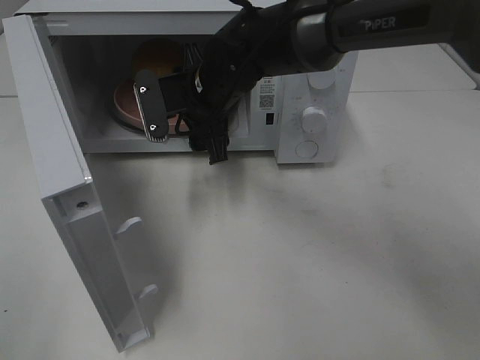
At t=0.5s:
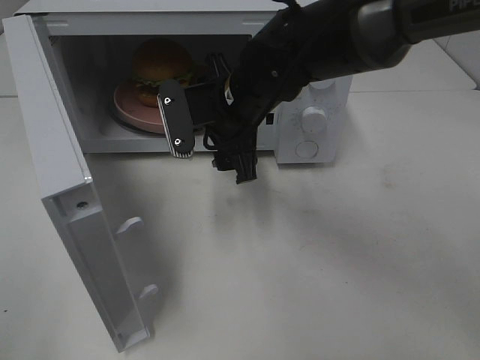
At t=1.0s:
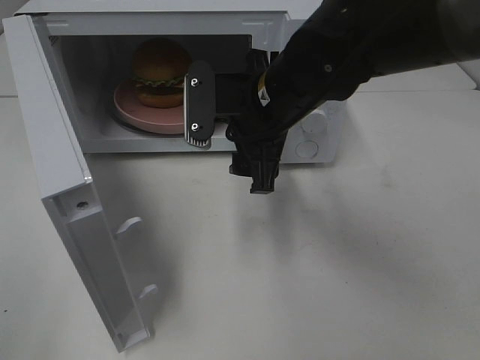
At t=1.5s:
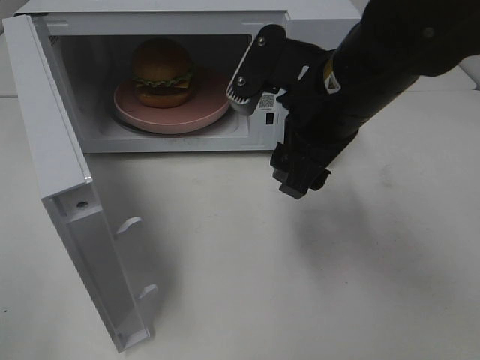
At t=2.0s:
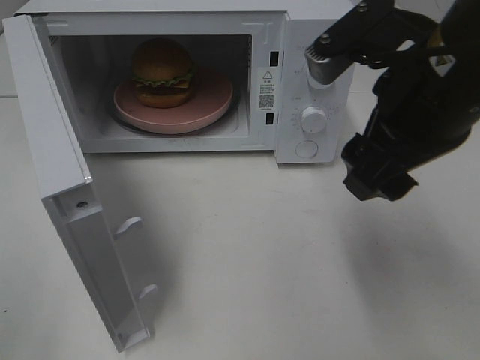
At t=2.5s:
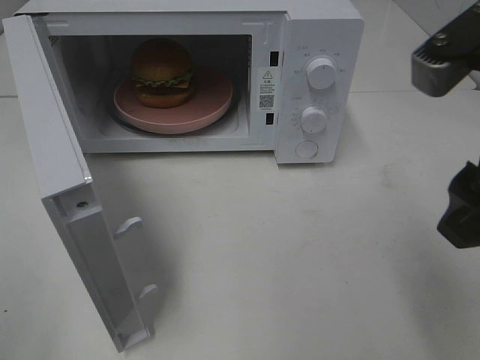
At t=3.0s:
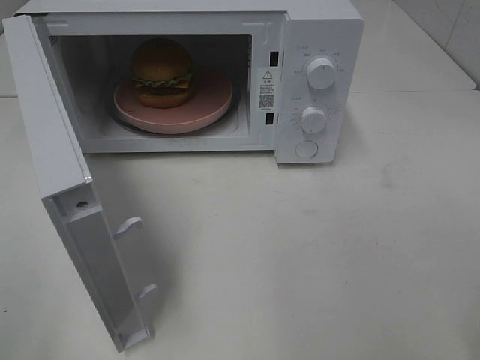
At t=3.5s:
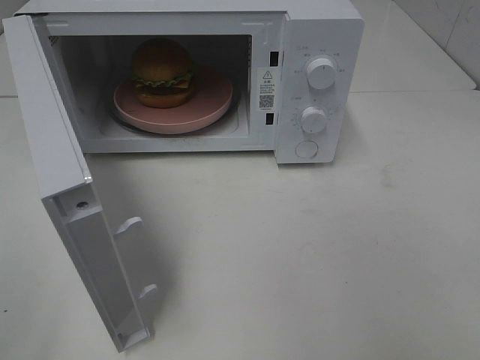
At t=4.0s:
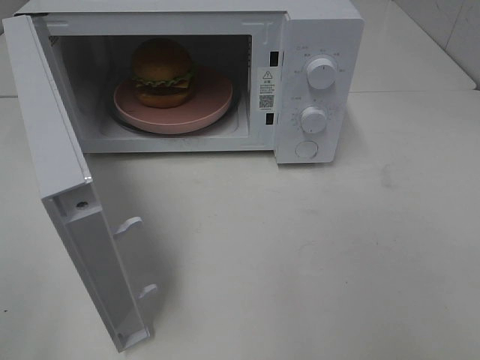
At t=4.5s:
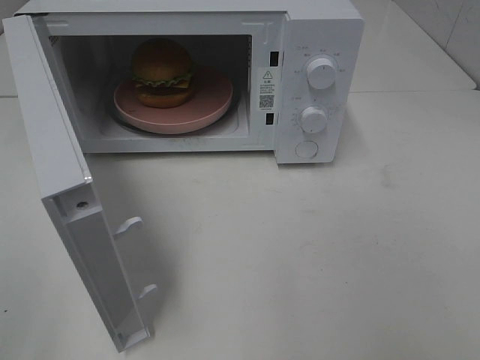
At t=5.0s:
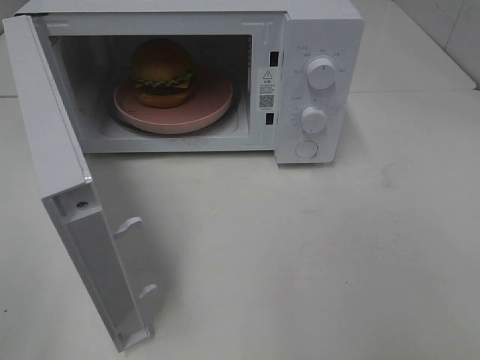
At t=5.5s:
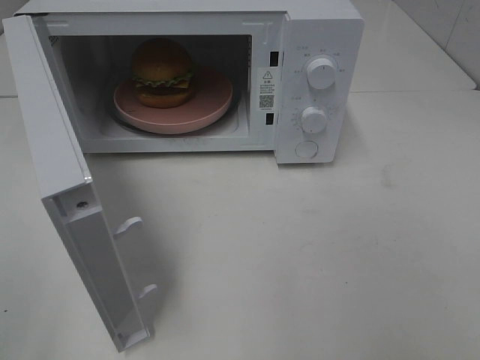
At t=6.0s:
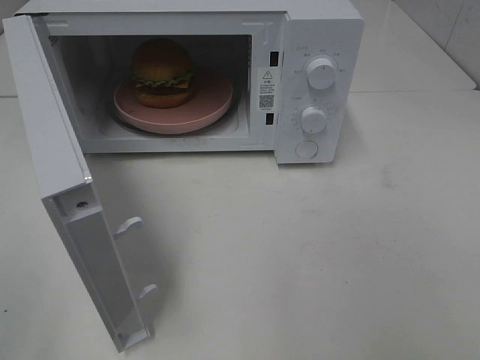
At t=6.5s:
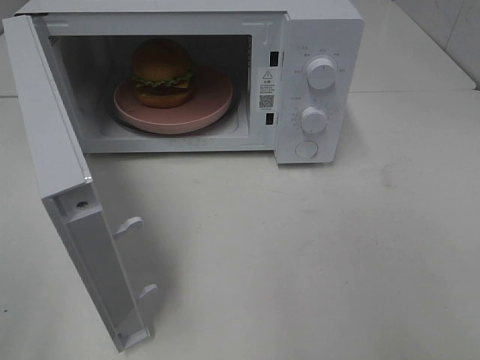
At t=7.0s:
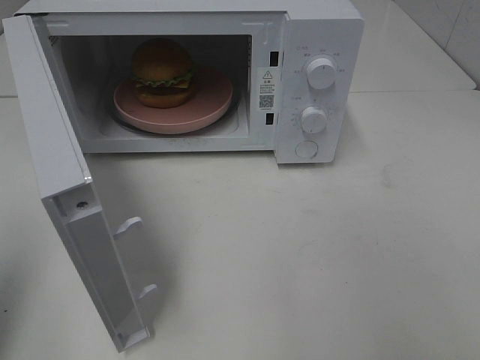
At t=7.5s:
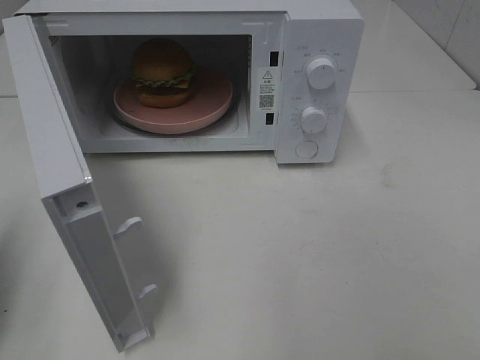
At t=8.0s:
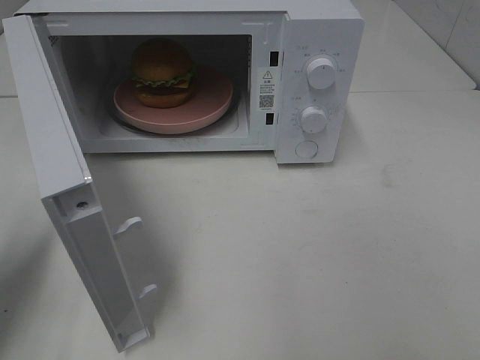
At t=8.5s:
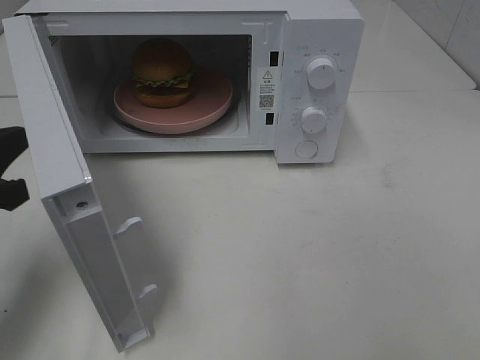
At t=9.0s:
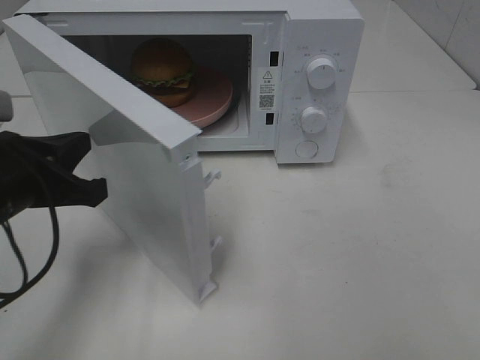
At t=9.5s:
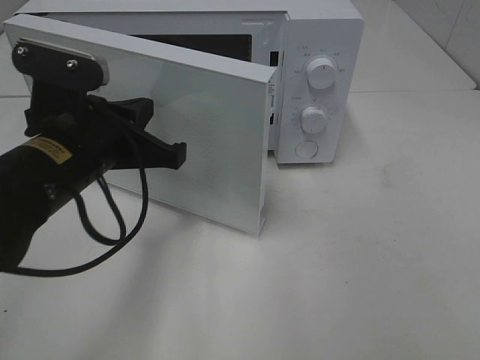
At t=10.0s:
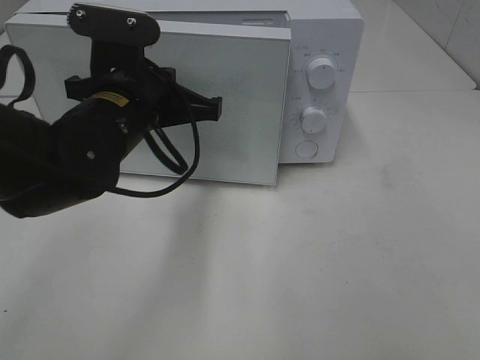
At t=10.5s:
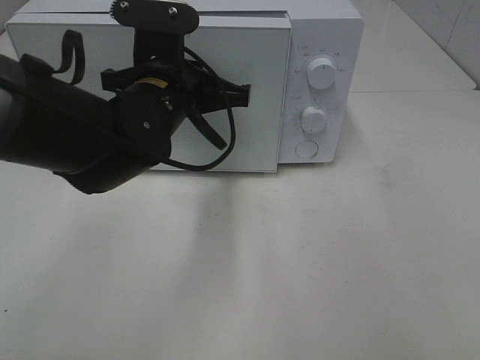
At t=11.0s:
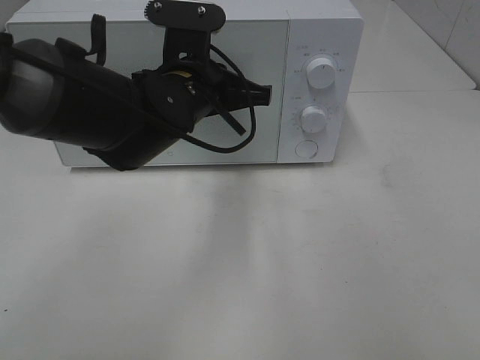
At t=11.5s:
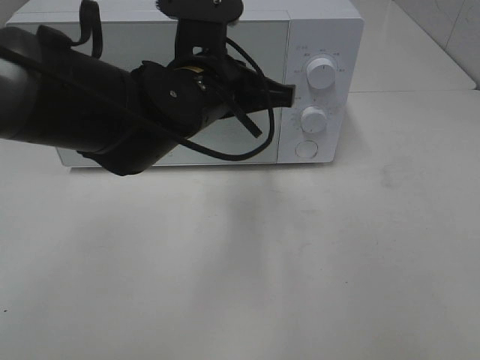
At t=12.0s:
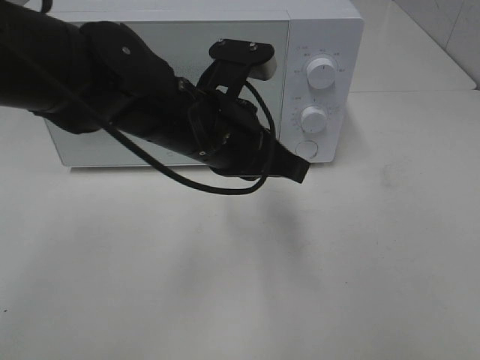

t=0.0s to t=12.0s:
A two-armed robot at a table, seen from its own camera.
Task of the whole recording: Heat the burger.
Step, t=0.0s to t=11.5s: Left hand: close the microwave door.
t=0.0s to t=2.0s: The right gripper heads backward, to the right and upward, covering roughly 25 cm.
t=2.0s to t=4.0s: The right gripper is displaced backward and to the right by about 25 cm.
t=6.0s to t=8.0s: The left gripper shifts some 20 cm forward and downward, and closes its fingers.
t=8.0s to t=10.0s: The left gripper is displaced to the right and forward by about 25 cm.
t=10.0s to t=12.0s: The left gripper travels to the right by some 5 cm.

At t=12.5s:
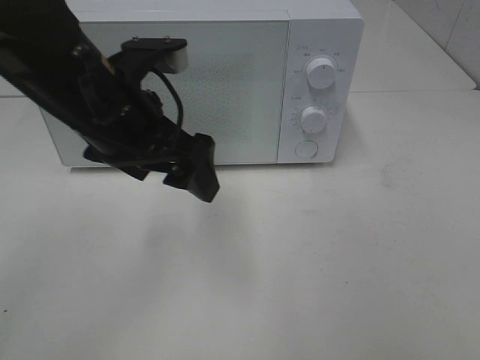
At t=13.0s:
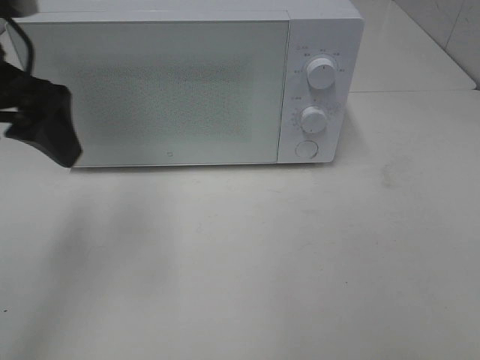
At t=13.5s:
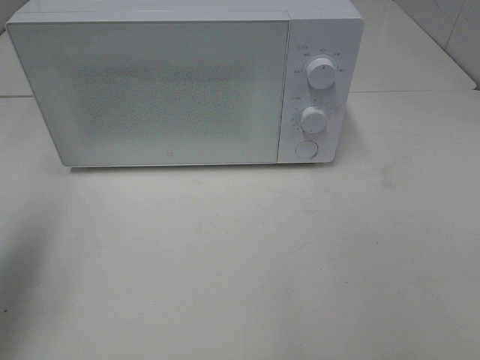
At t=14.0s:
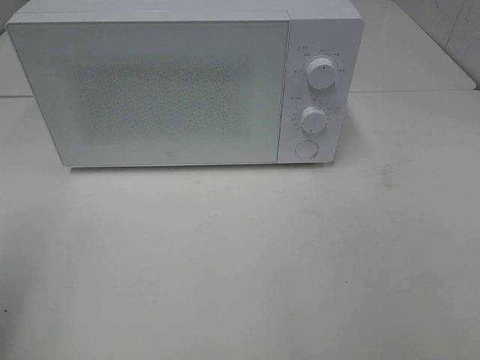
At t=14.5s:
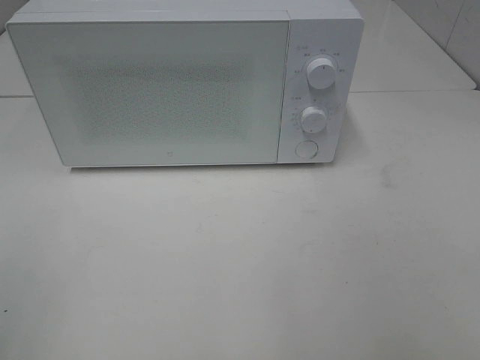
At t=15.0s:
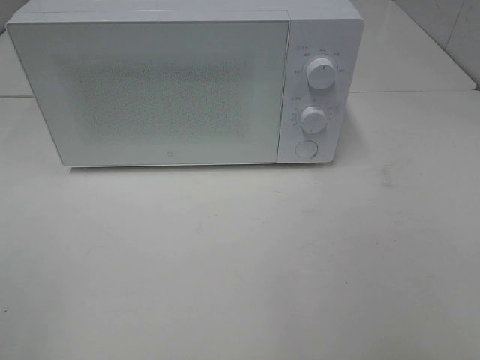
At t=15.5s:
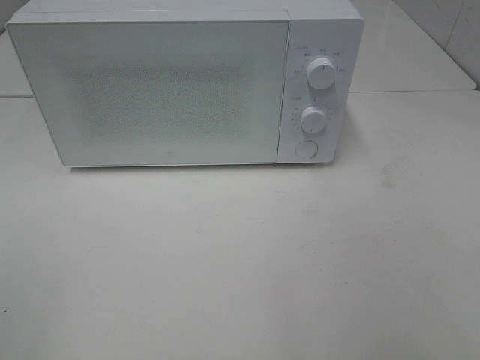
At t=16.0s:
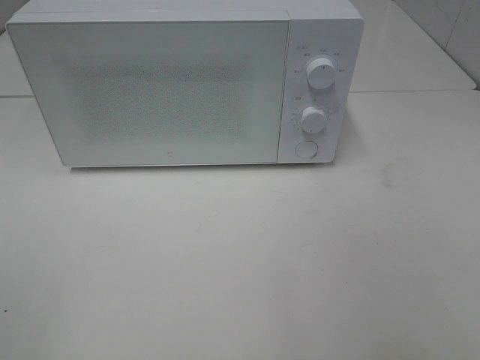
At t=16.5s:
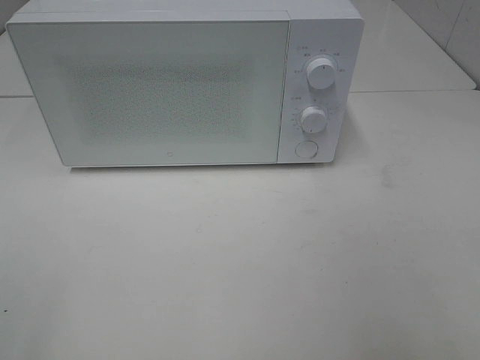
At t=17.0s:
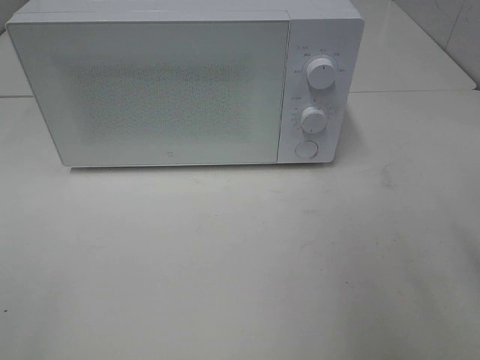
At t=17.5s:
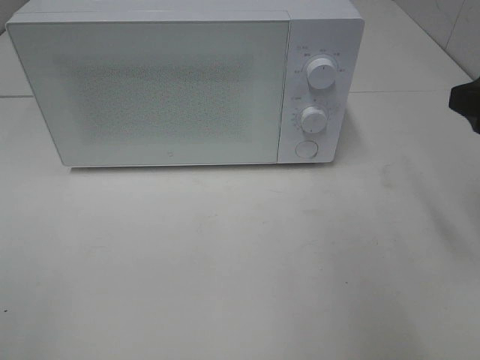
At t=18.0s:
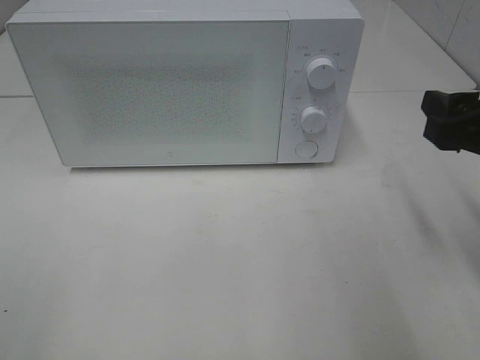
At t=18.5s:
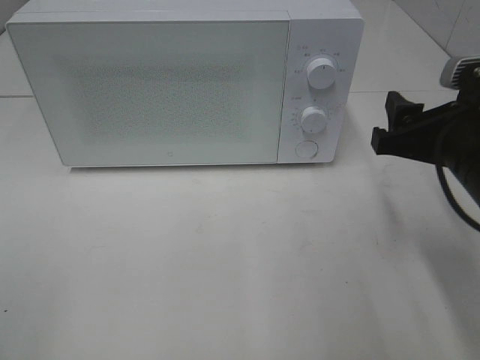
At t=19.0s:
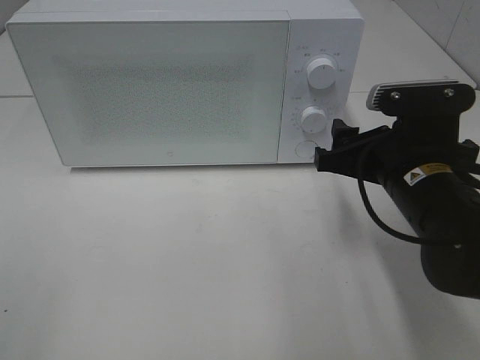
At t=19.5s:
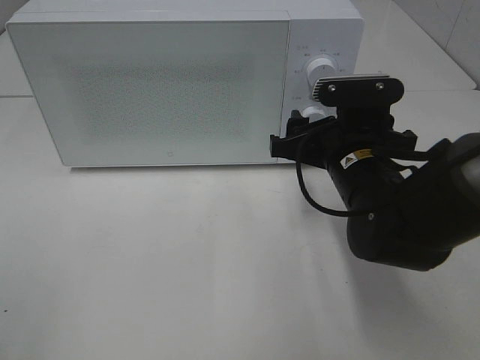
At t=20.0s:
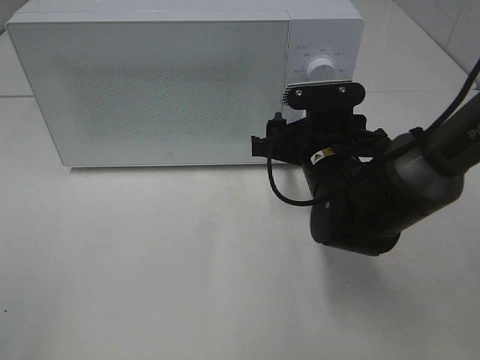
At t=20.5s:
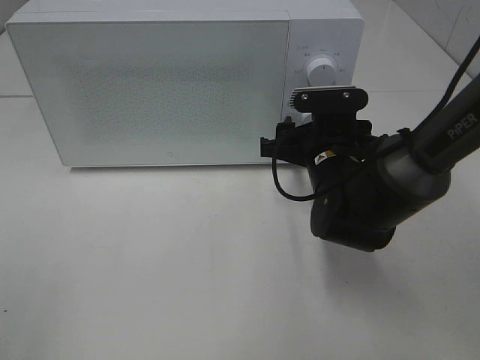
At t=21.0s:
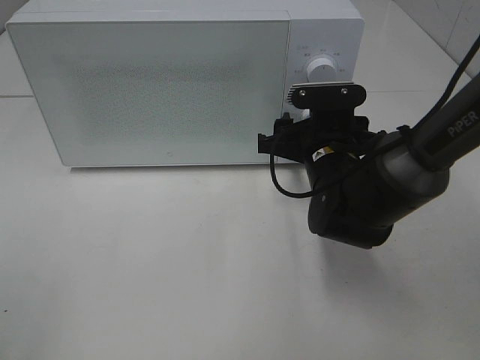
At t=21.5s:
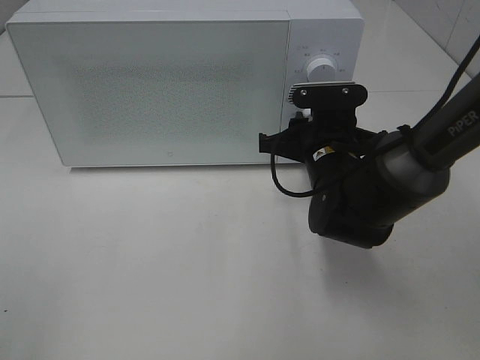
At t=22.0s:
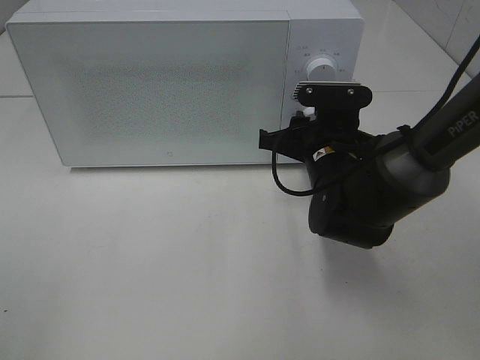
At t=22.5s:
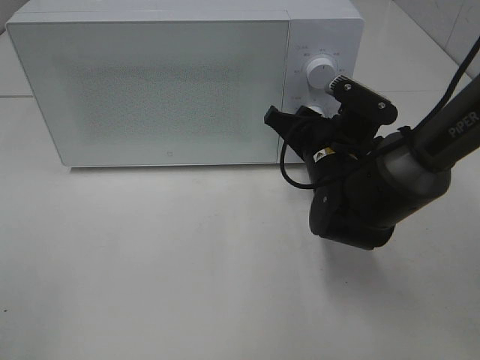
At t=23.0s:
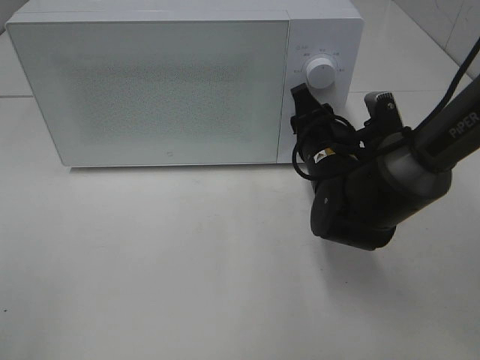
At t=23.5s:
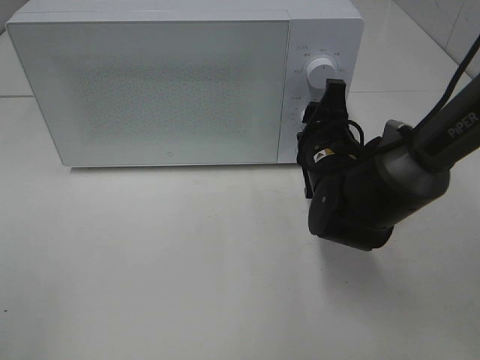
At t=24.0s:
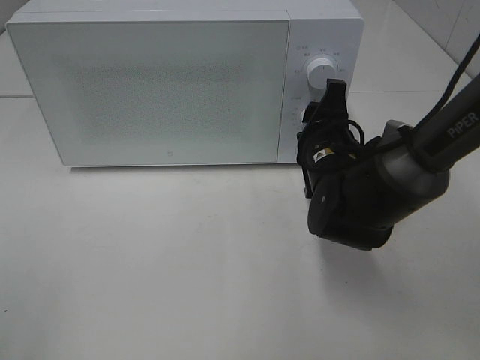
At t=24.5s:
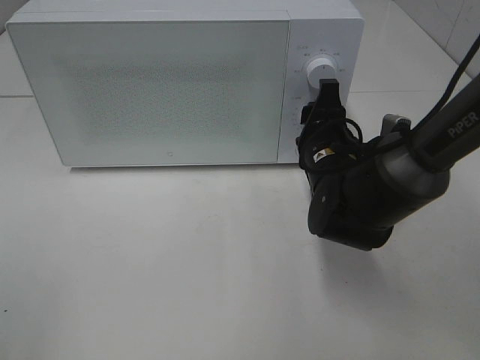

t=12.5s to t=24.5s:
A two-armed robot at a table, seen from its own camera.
Task of the whole recording: Heat the burger.
t=12.5s to t=14.5s: The left gripper travels backward and to the left by roughly 30 cm.
t=16.5s to t=18.5s: The right gripper moves forward, downward and to the left, about 20 cm.
t=18.5s to t=20.5s: The right gripper shifts about 15 cm forward, to the left and downward.
t=20.5s to t=22.5s: The right gripper closes up.

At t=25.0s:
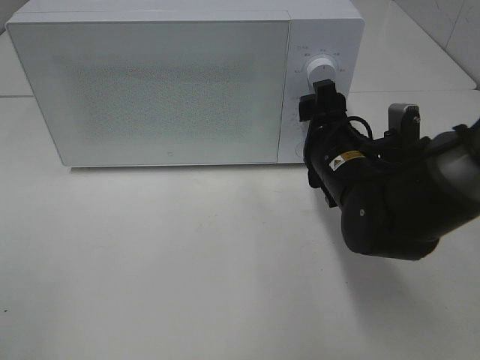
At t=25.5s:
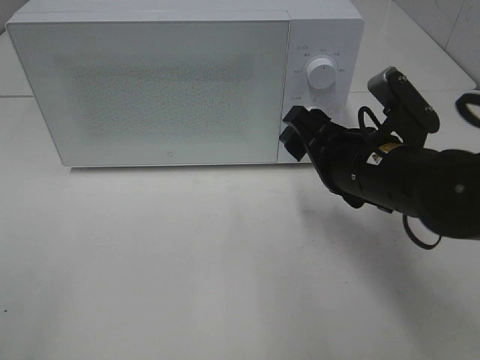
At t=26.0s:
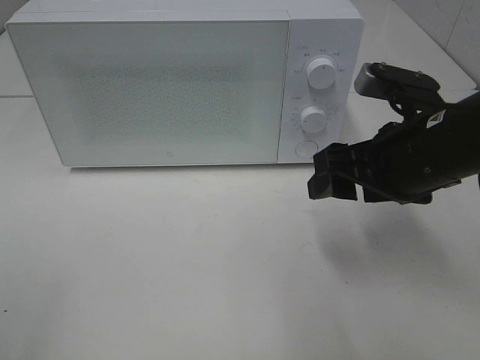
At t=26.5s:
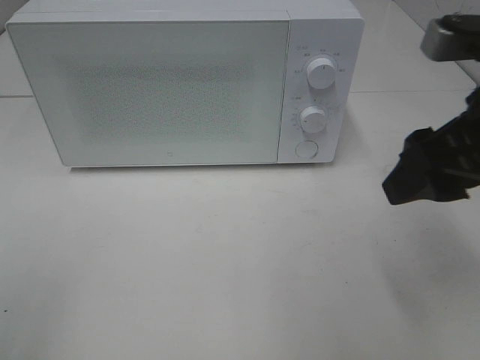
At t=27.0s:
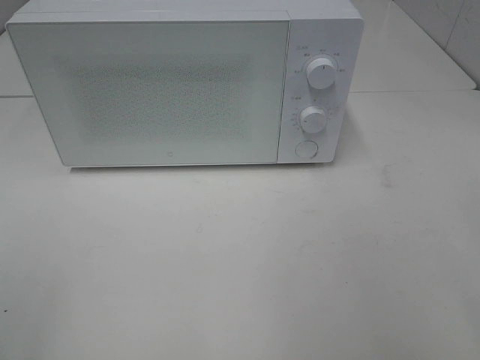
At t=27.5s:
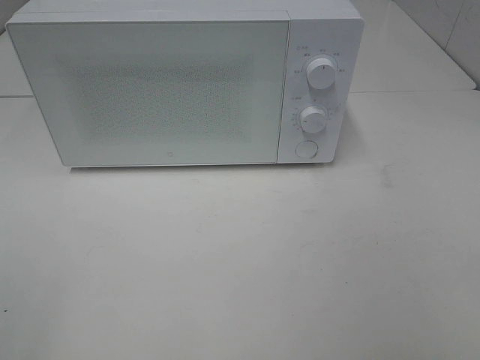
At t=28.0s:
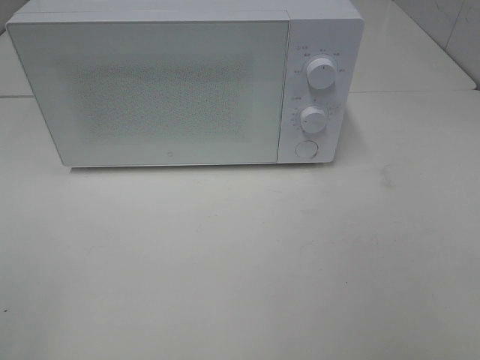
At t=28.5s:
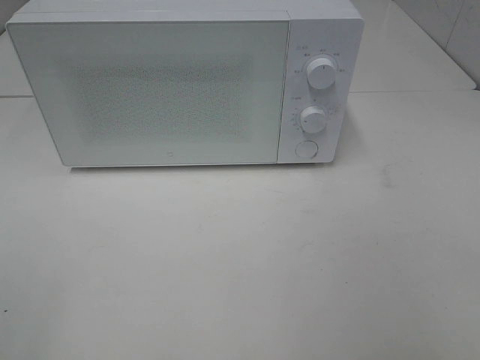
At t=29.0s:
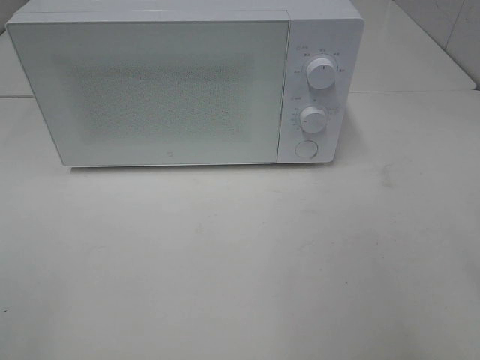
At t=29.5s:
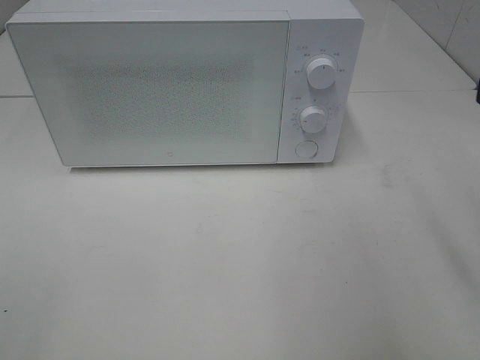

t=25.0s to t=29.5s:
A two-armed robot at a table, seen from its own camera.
Task of the whole recording: Heat the burger.
t=25.0s to t=27.0s: The right gripper moves backward, upward and to the right, about 35 cm.
